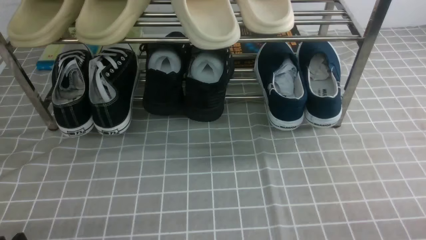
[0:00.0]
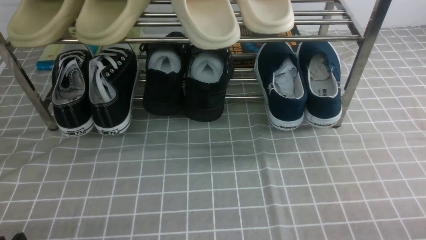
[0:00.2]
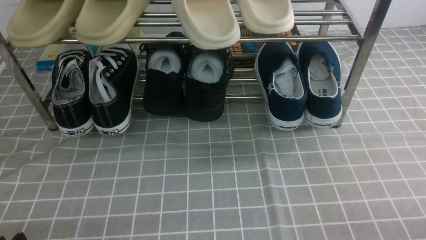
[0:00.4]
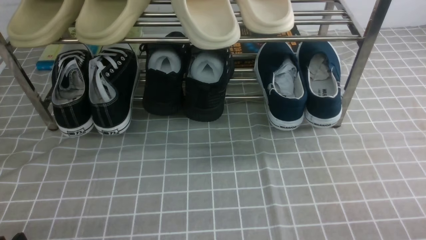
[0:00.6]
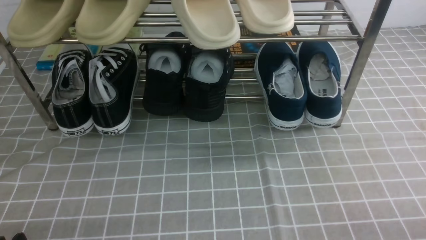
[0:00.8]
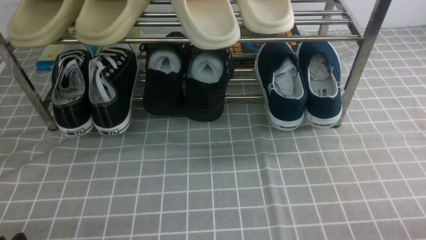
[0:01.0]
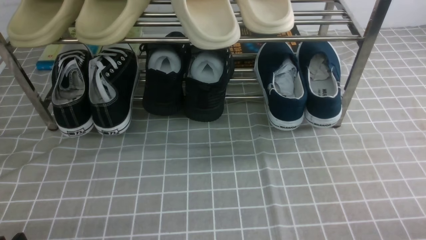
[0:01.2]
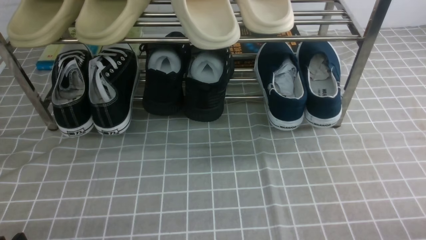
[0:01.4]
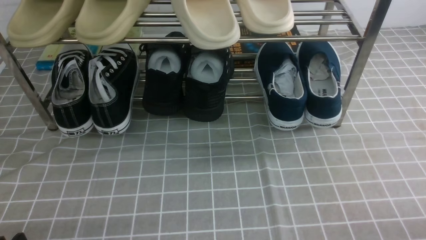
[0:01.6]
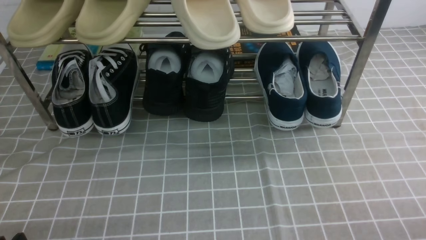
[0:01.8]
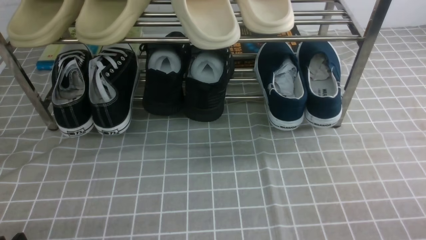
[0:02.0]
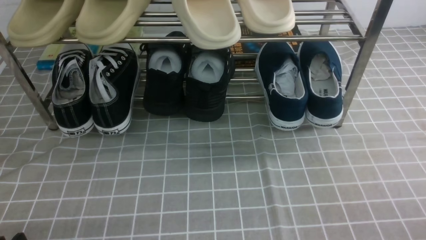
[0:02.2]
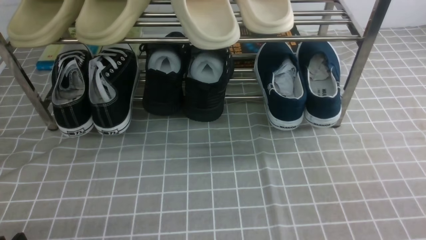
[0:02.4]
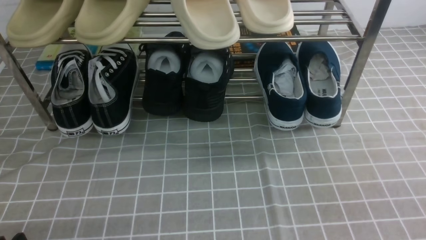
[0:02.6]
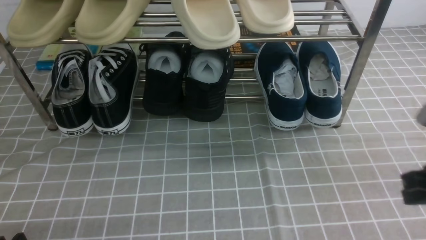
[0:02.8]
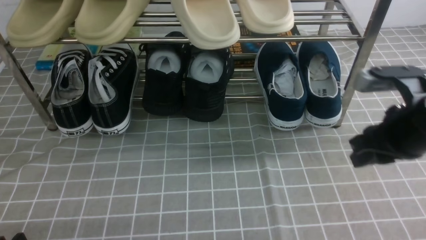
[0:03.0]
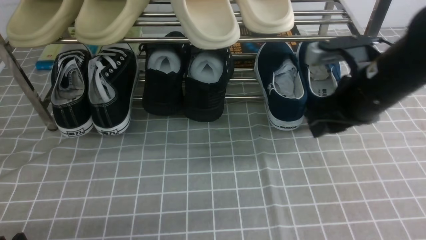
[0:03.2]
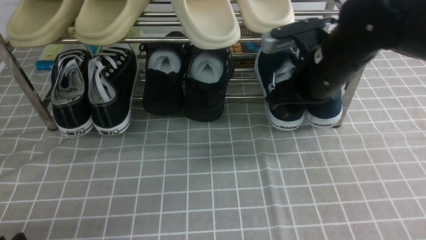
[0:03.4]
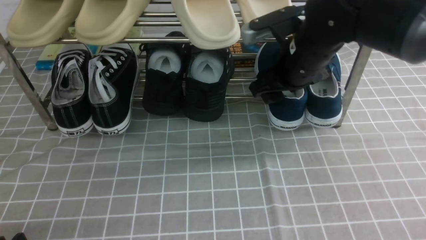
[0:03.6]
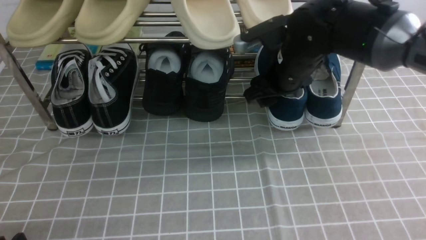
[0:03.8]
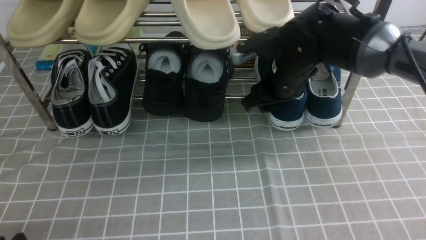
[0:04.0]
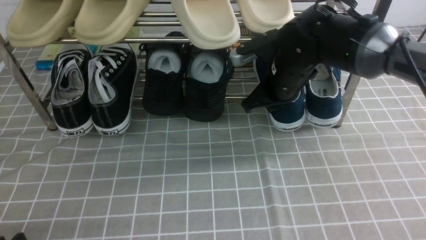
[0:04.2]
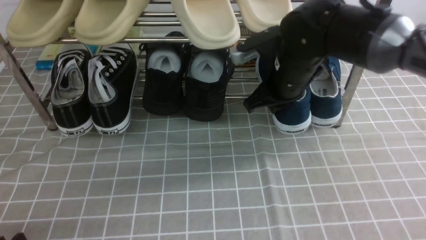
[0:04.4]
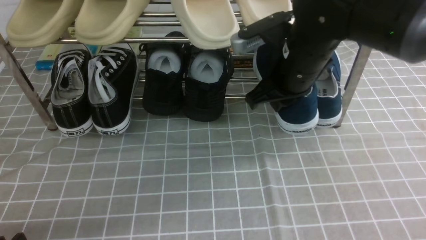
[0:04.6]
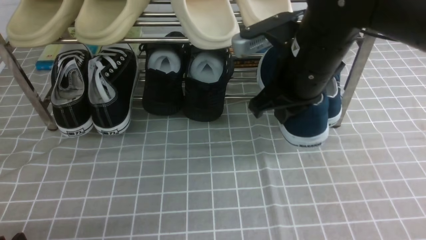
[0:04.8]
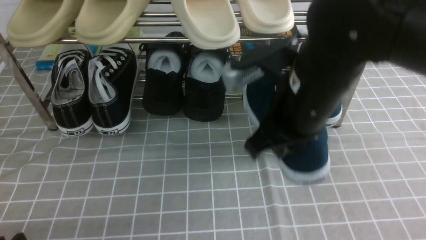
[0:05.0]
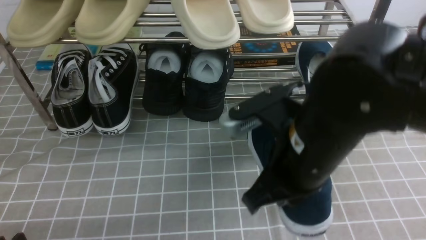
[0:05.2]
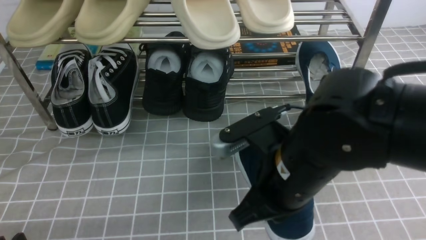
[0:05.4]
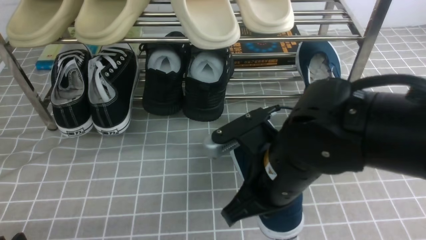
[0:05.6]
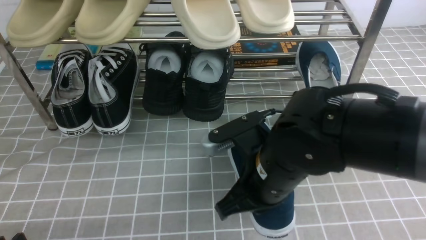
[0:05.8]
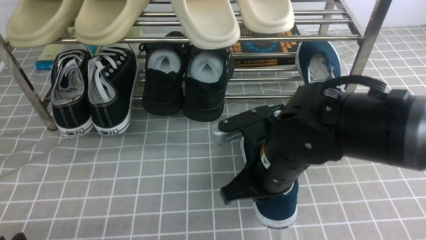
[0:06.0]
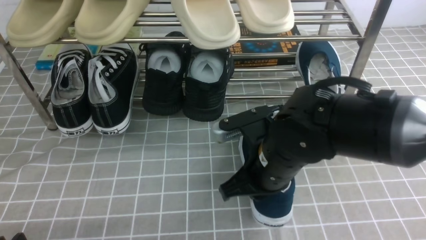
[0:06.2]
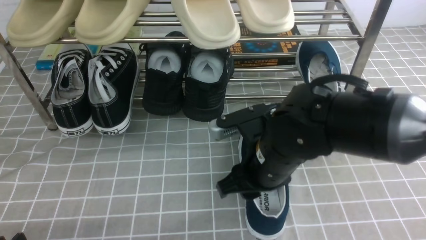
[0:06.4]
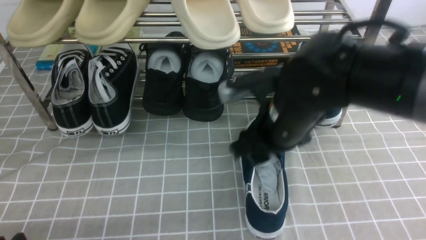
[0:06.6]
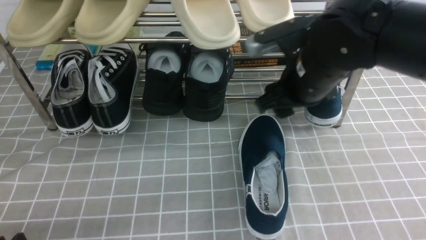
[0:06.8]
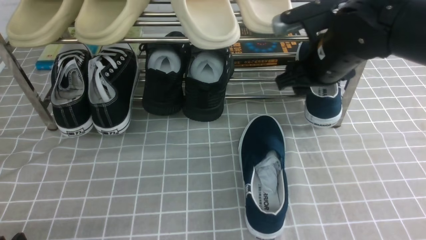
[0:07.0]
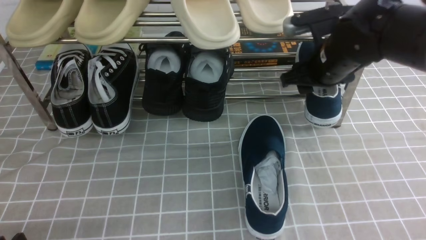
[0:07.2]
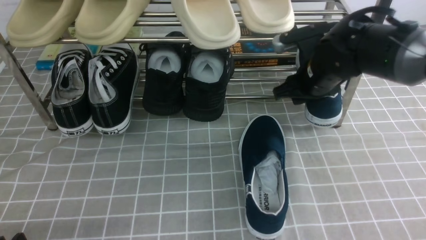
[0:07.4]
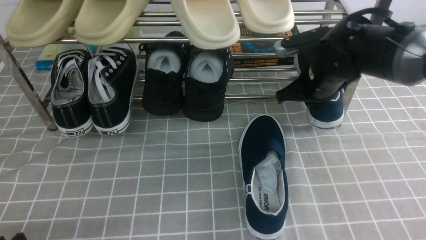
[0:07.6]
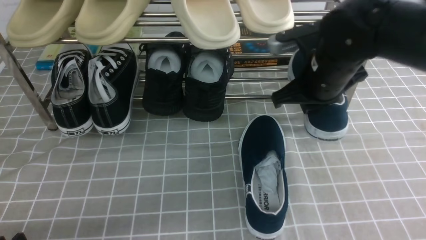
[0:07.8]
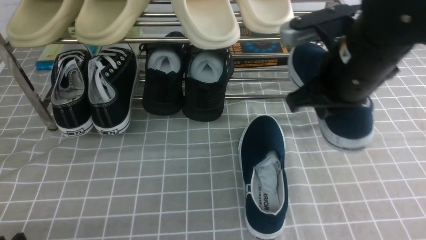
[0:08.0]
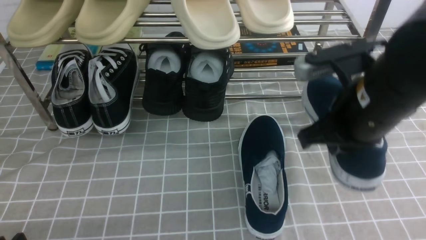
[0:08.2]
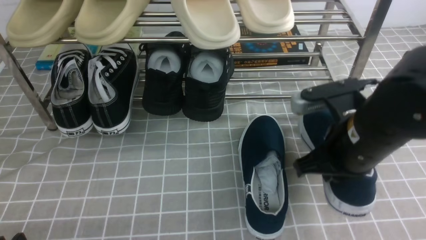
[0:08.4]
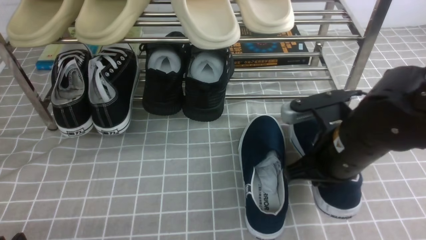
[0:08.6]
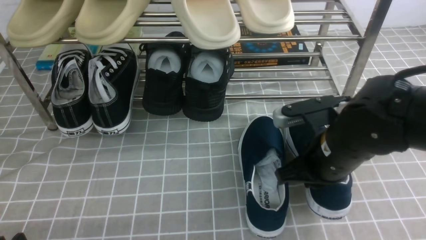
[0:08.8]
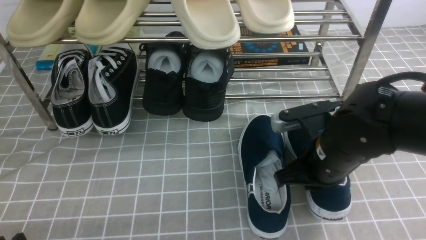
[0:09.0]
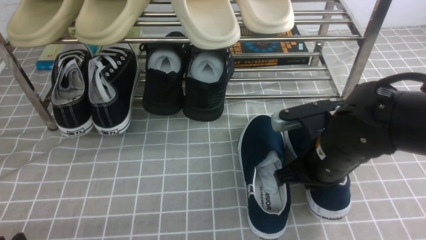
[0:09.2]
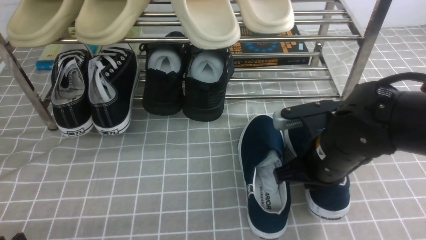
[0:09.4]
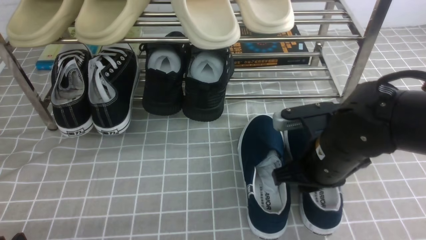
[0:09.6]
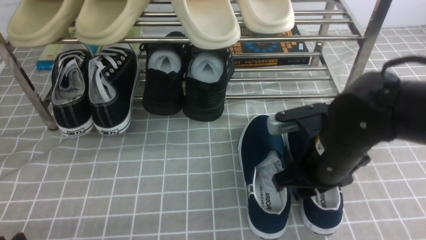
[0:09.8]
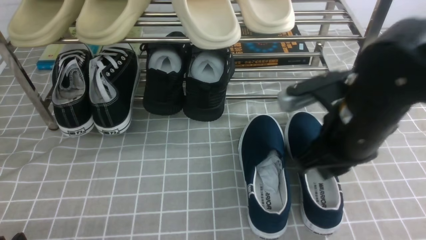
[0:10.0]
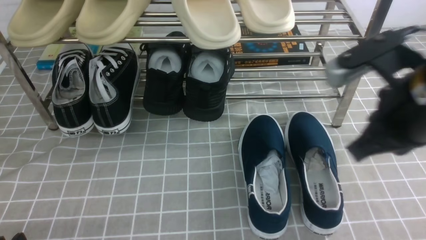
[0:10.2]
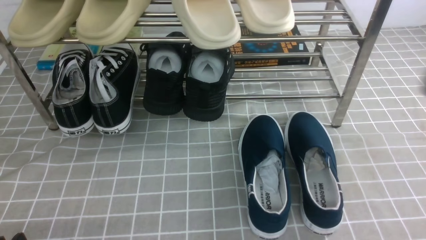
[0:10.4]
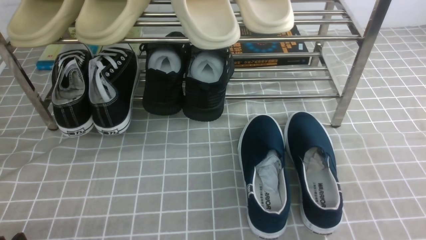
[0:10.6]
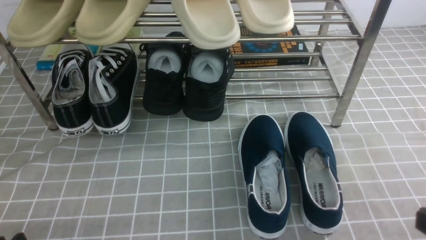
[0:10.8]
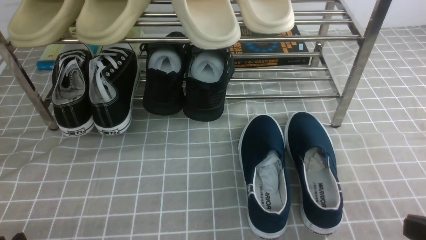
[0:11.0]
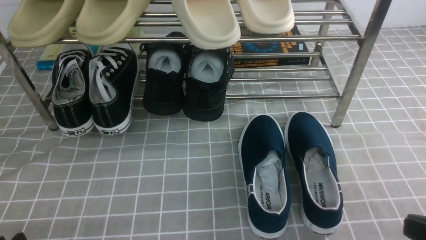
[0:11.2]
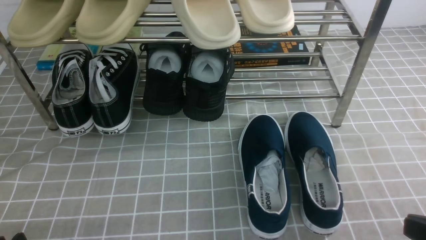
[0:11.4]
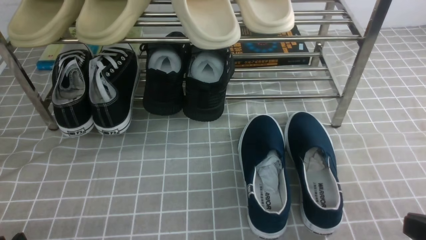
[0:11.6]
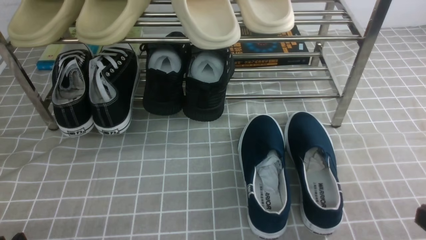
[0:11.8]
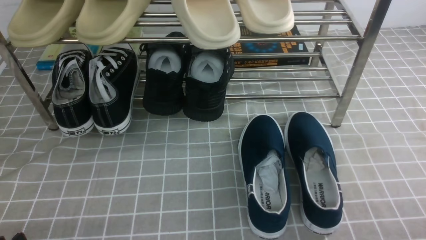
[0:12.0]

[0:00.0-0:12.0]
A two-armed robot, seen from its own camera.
Step, 0:00.0 to 0:04.2: use the right arm to clamp a shoe on the right side of the shoe rack.
Step, 0:04.4 to 0:06.6: use the right arm to take out the clamped shoe from the shoe rack and put it down.
Step, 0:06.8 to 0:07.6: use the right arm to clamp a shoe on the right side of the shoe rack.
Step, 0:07.8 to 0:10.0: use the right arm to take out the clamped shoe from the shoe rack and put it down.
0:01.6 to 0:03.0: The right gripper goes roughly 20 cm forward, upward and to the left.
0:03.0 to 0:04.4: The right gripper is displaced to the left and forward by about 20 cm, and opens, then closes once more.
0:04.4 to 0:06.0: The right gripper shifts roughly 15 cm backward.
0:06.0 to 0:07.6: The right gripper heads forward and to the right, covering approximately 20 cm, and opens, then closes once more.
0:07.6 to 0:09.0: The right gripper goes roughly 15 cm backward, and closes up.
0:09.0 to 0:10.4: The right gripper heads upward, backward and to the right, covering about 20 cm, and opens, then closes once more.
0:10.4 to 0:12.0: The right gripper travels downward, backward and to the right by approximately 20 cm.

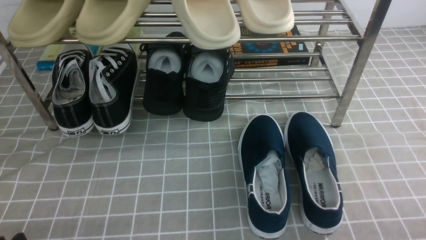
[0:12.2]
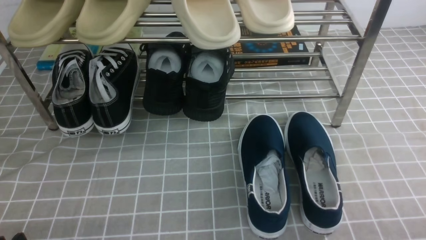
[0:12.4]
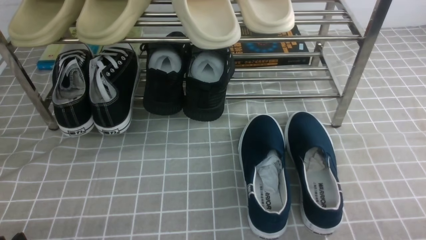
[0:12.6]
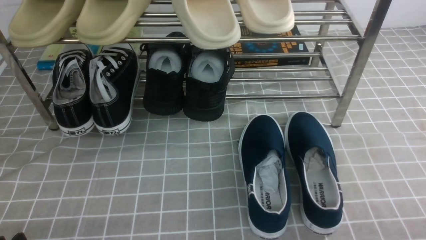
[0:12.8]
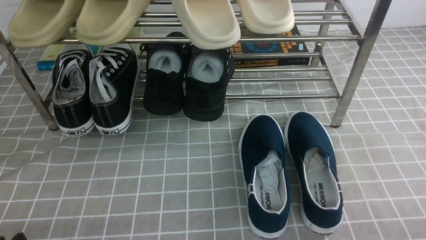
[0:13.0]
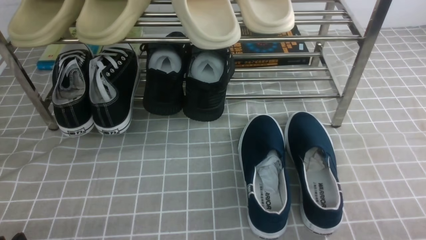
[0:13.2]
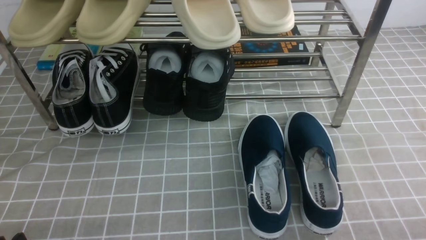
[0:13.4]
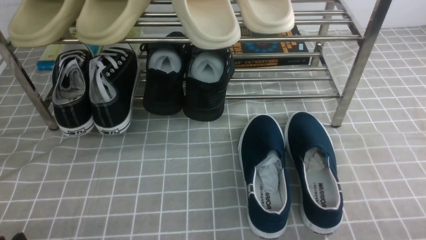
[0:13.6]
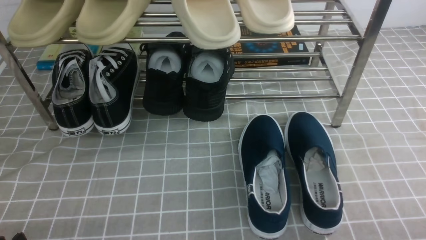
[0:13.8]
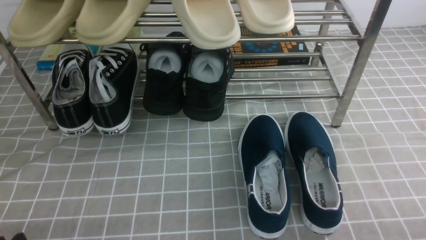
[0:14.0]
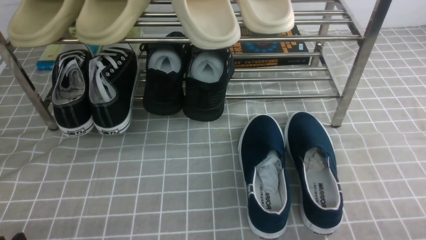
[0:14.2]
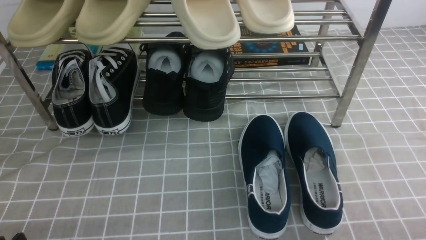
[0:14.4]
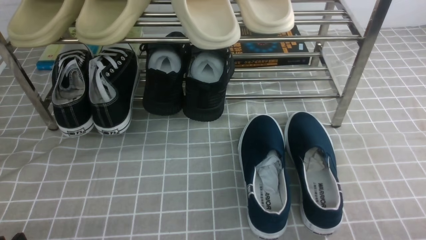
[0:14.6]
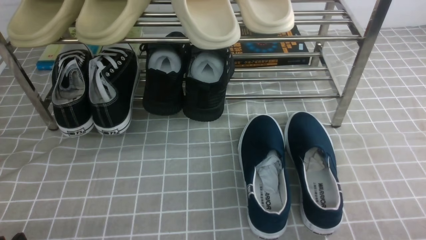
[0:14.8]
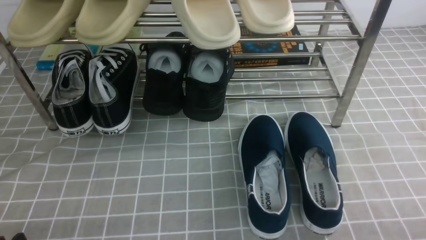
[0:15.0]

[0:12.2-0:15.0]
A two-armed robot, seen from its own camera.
0:13.6 to 0:15.0: The two grippers keep their place.
